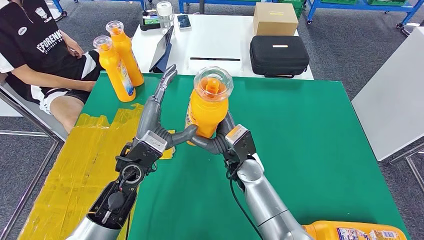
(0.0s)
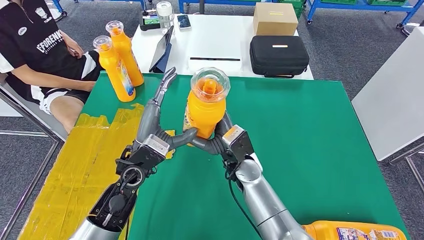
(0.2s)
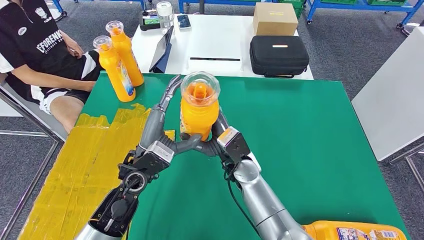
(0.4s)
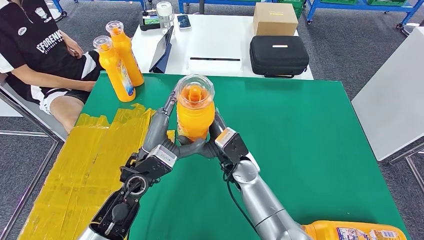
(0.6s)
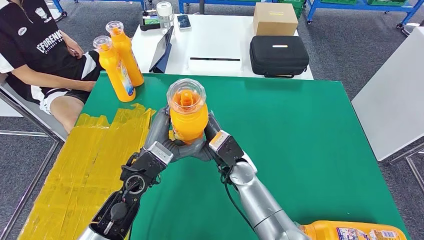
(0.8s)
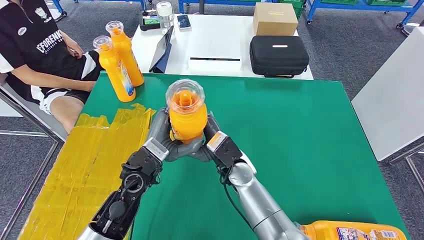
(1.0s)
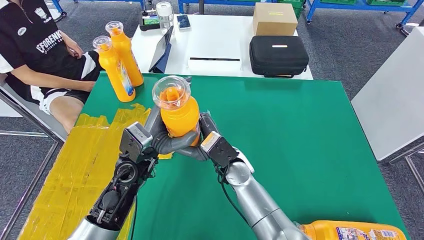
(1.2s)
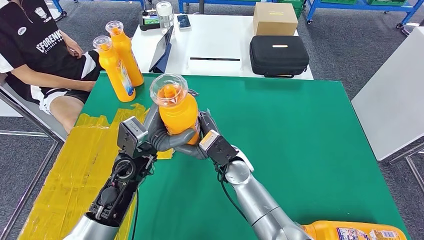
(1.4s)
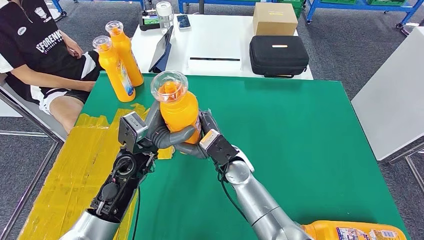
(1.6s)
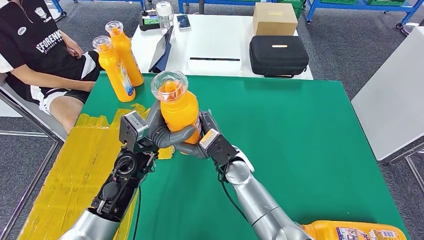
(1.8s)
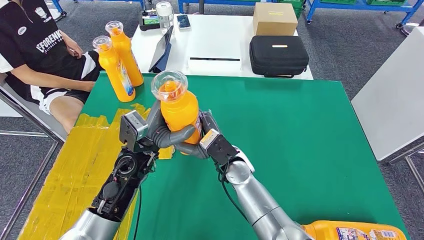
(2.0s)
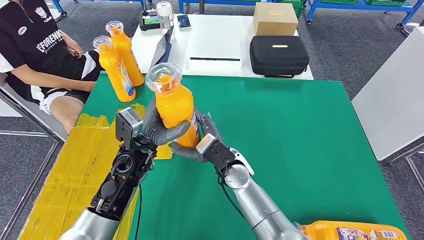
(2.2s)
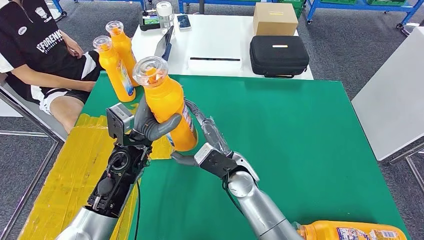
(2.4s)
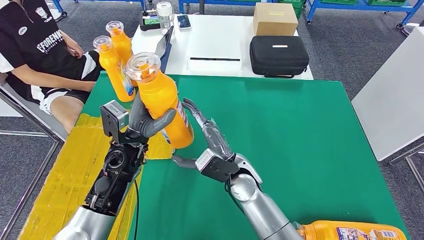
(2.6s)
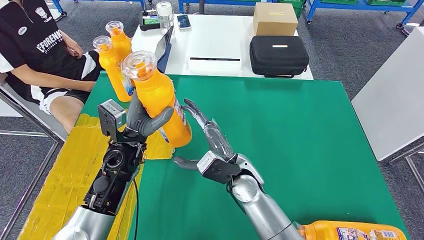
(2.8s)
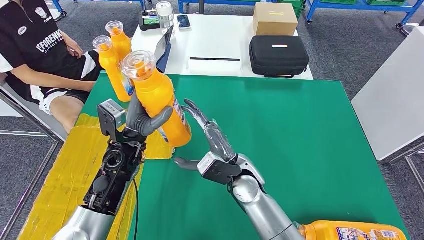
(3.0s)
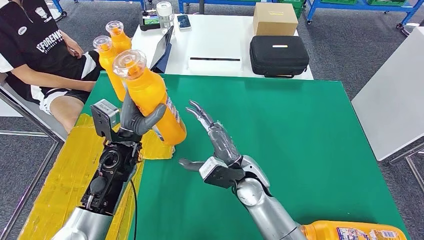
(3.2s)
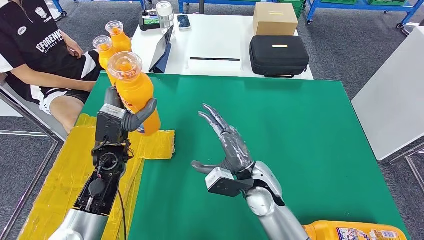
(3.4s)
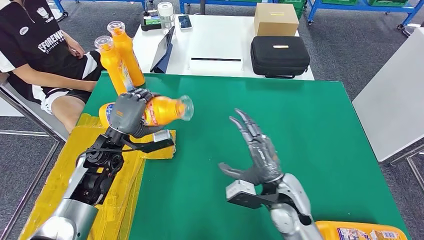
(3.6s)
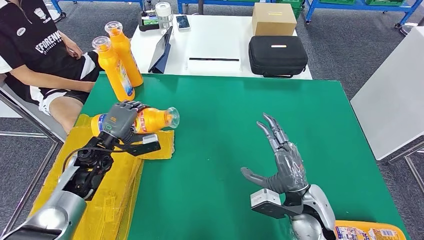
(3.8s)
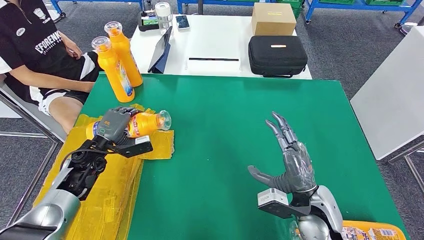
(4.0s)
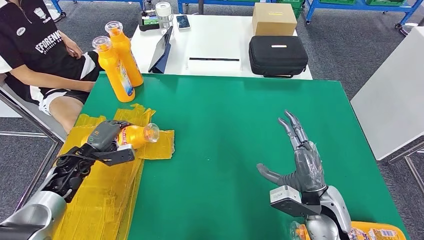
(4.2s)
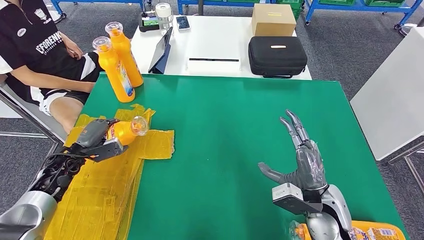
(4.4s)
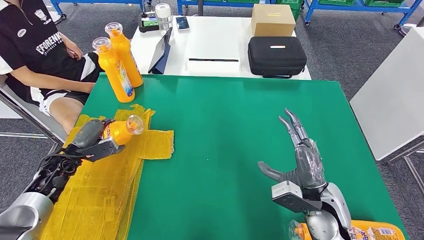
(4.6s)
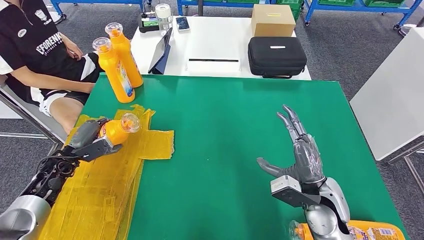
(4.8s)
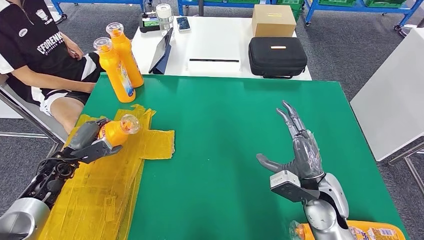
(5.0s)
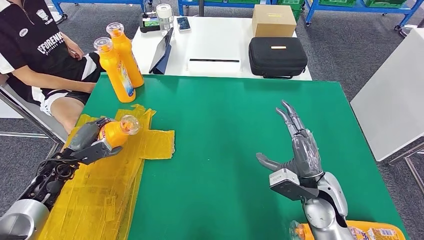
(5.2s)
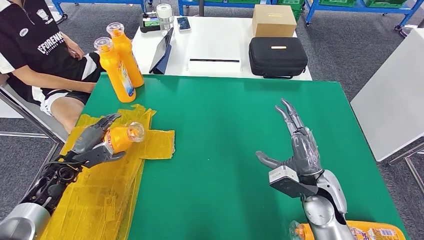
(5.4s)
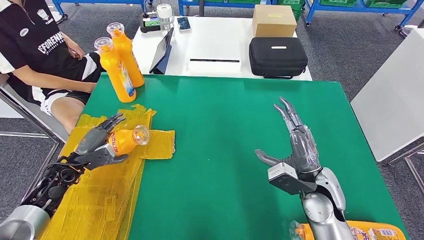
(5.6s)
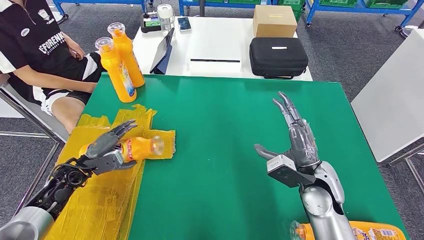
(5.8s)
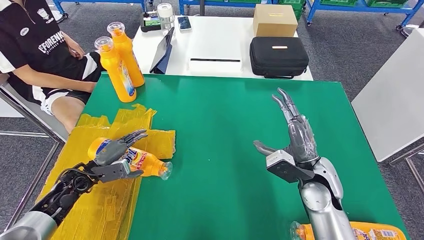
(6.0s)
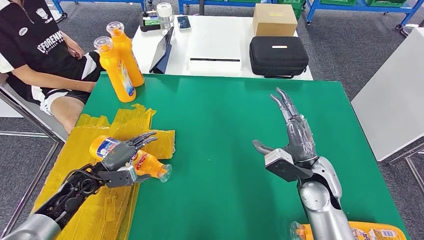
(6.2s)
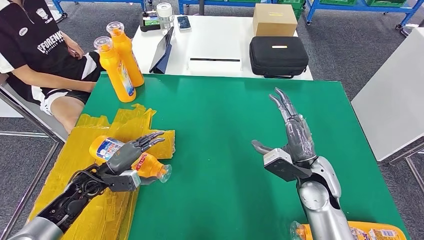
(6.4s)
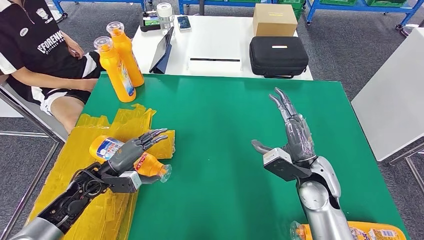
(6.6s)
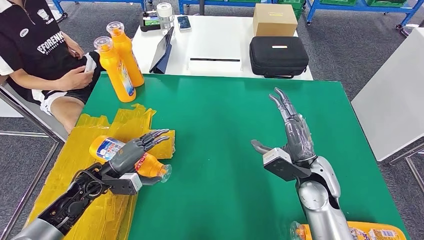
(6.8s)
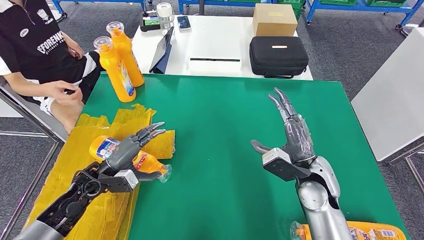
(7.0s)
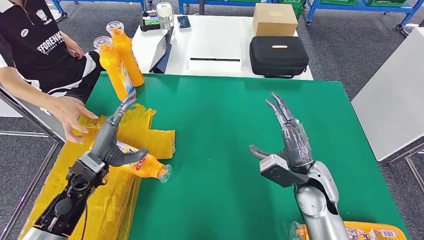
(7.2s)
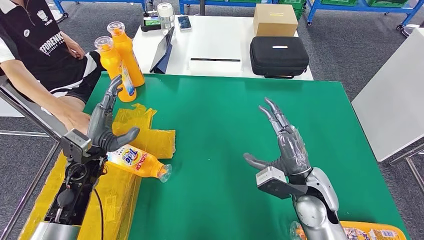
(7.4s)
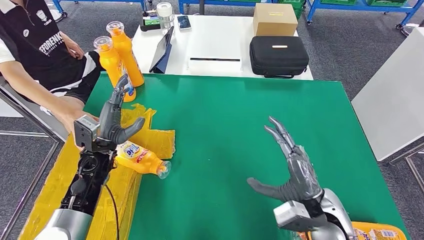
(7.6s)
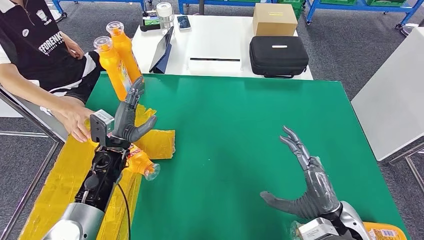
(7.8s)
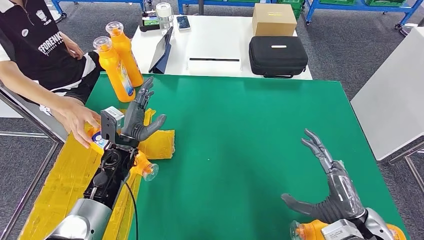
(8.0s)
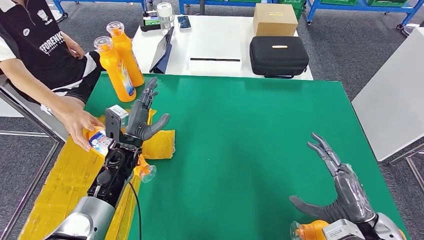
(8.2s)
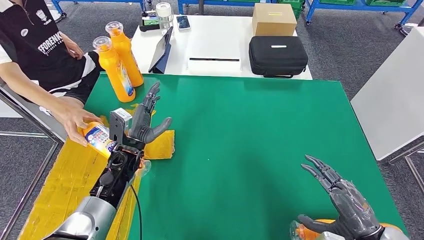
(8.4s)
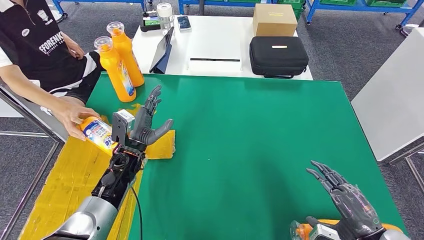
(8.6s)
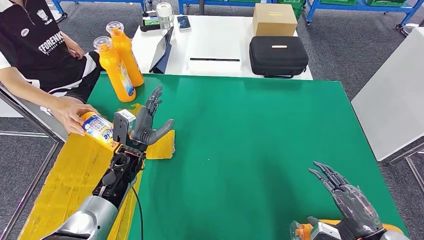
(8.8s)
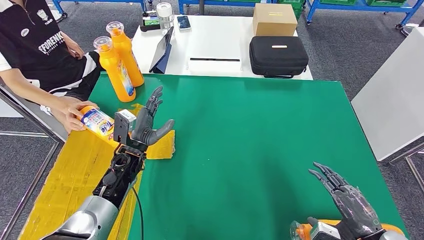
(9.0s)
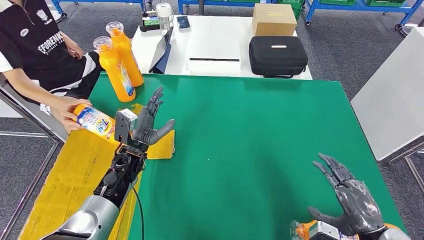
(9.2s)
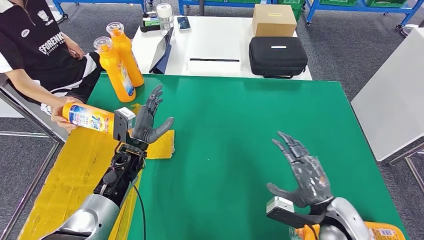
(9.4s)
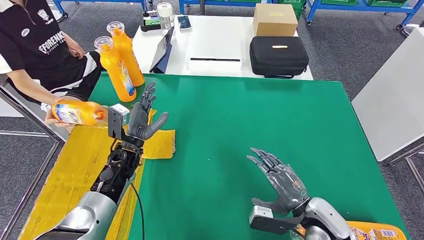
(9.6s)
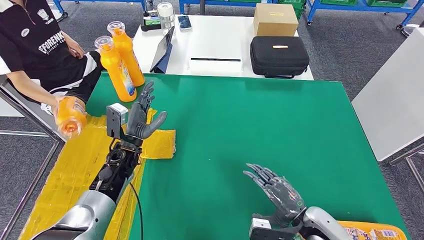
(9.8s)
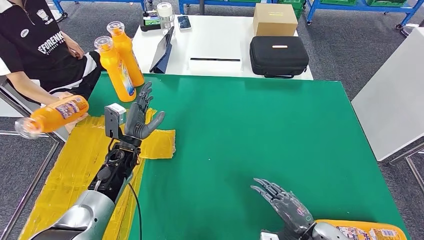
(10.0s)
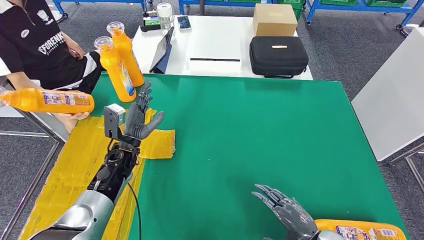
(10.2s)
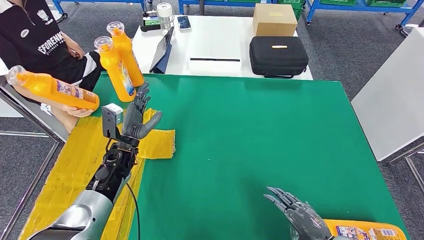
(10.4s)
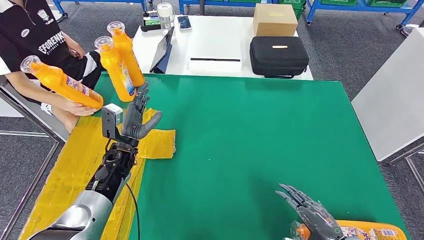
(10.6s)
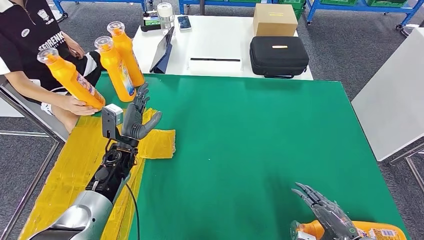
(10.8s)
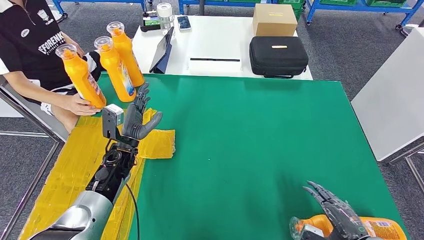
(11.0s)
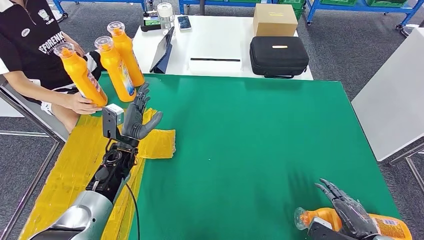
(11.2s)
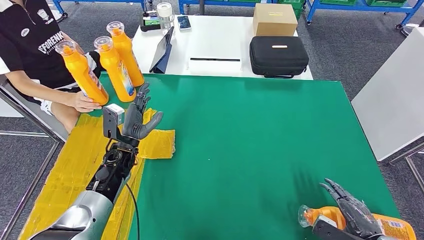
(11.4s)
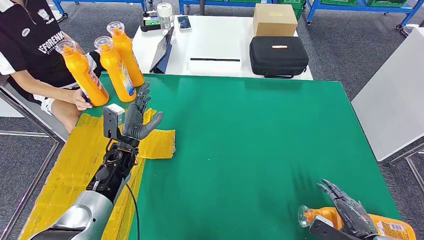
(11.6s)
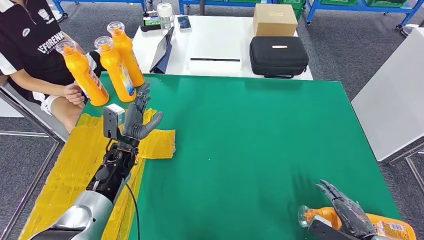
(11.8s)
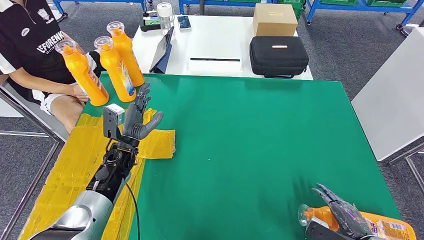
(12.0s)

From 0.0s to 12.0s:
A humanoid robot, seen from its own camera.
Step, from 1.6s to 8.0s: Flip the fast-moving consumer goods bottle to the front side.
From 1.6s to 3.0s: The hands make only small movements.
From 7.6s to 9.0s: The right hand moves to the right and backward, about 15 cm. The left hand shifts roughly 5 cm to the right.
From 9.0s to 10.4s: The right hand moves to the left, about 5 cm.
From 10.4s to 12.0s: The right hand heads to the right, covering roughly 10 cm.

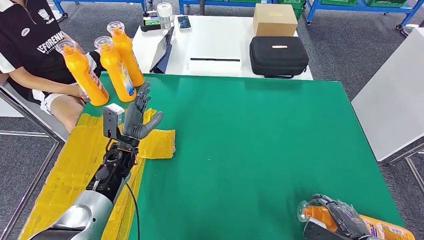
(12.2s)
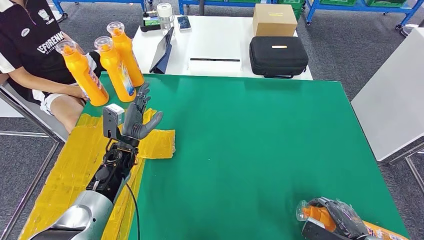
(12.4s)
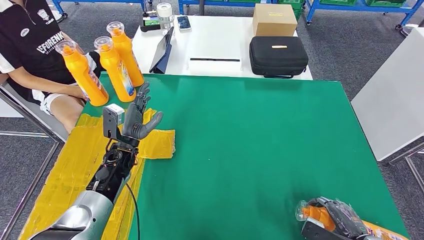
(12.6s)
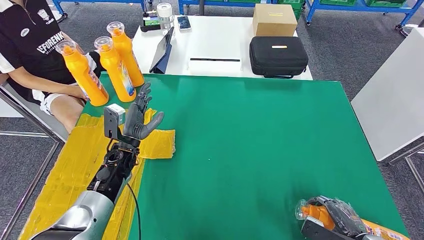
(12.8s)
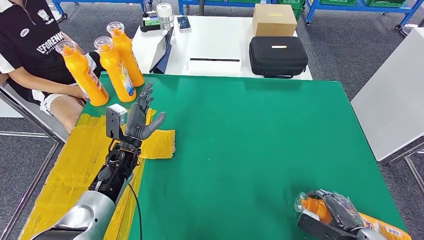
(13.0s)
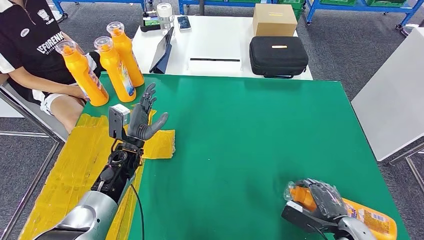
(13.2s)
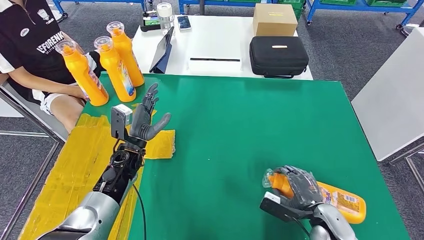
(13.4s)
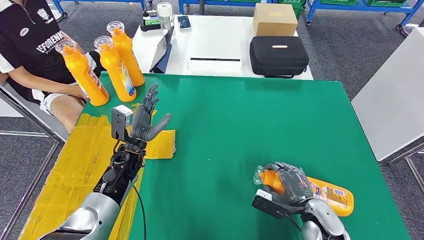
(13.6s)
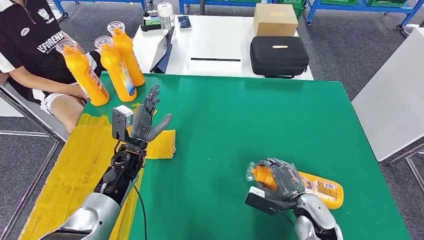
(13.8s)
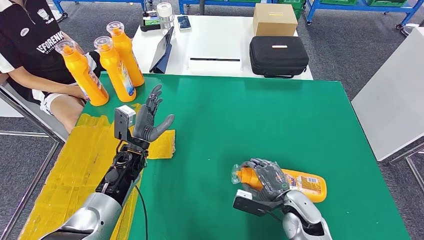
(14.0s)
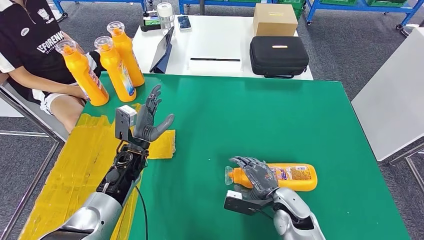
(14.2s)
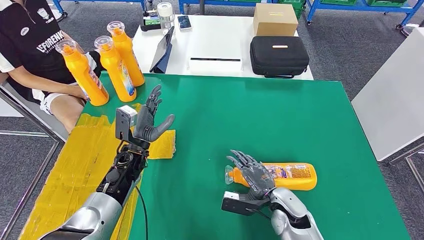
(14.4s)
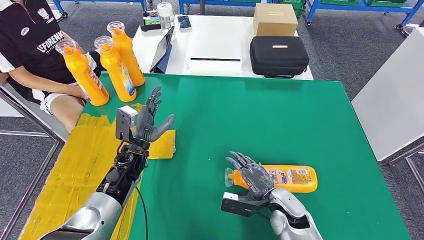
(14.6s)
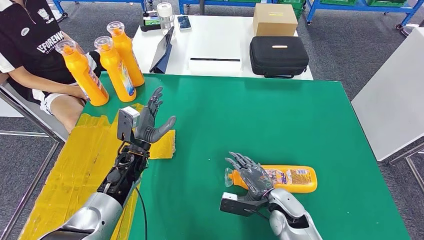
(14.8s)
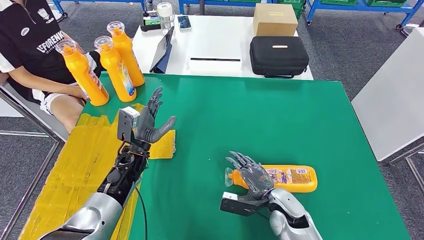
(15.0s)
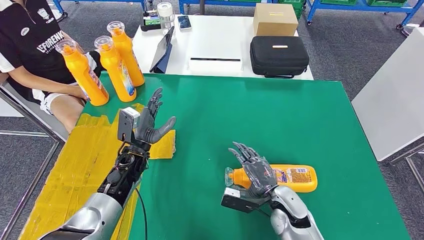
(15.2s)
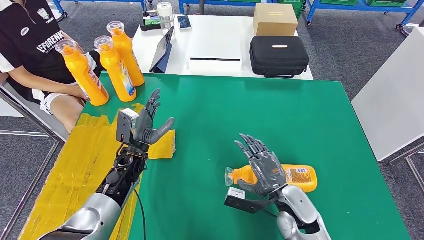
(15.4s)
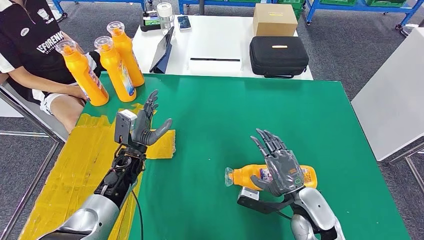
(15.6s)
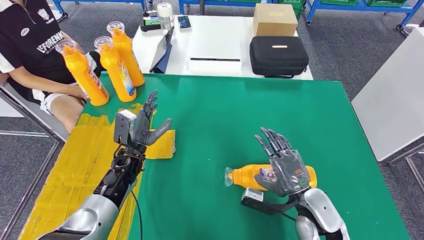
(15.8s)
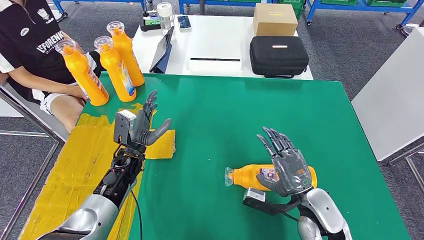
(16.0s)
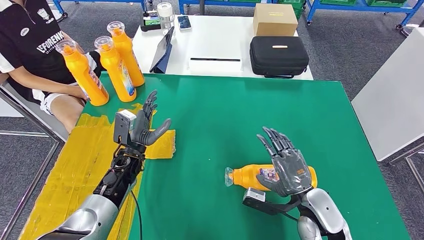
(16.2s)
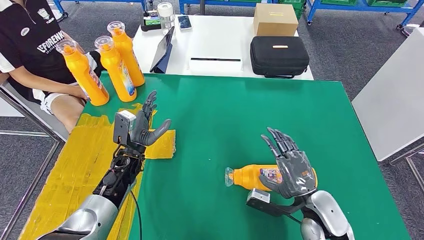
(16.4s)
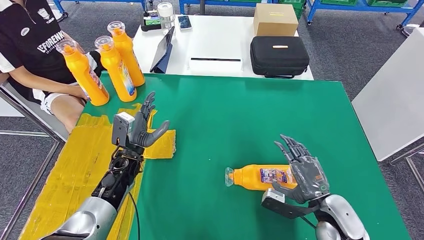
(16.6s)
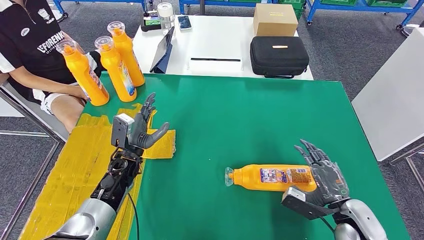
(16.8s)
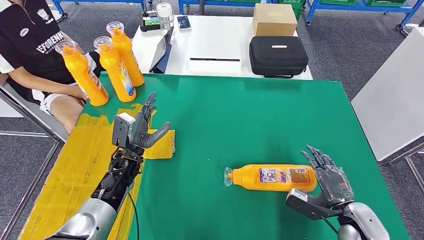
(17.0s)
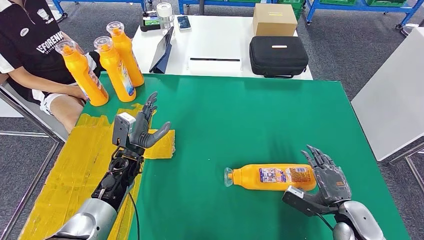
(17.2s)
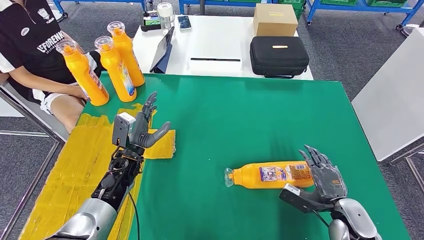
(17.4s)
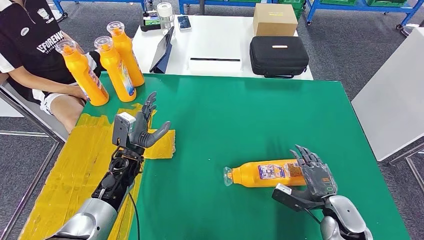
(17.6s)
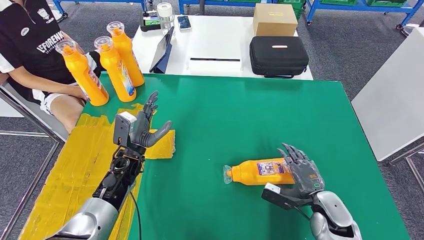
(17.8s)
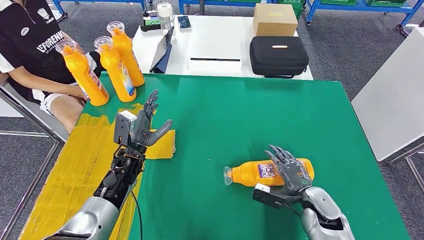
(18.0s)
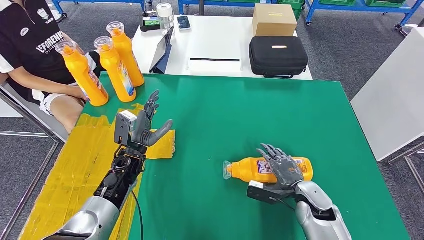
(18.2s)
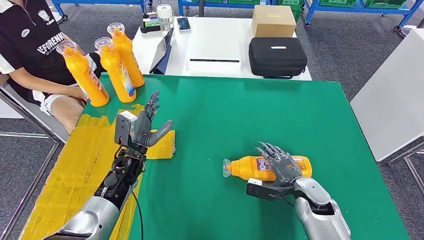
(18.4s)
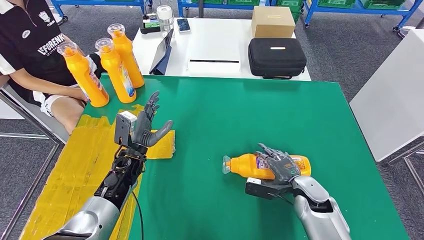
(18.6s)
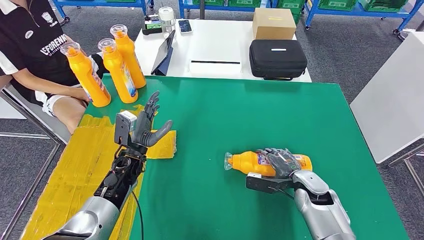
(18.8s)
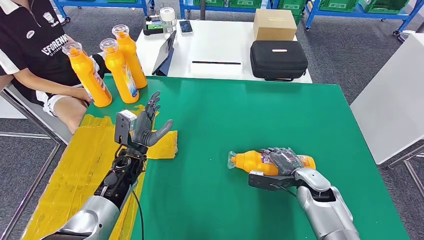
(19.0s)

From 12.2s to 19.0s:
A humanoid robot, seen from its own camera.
From 12.2s to 13.6s: The right hand is displaced to the left and forward by about 15 cm.
From 13.6s to 15.0s: The right hand moves to the left, roughly 10 cm.
From 15.0s to 16.2s: The right hand goes about 10 cm upward.
From 16.2s to 17.6s: The right hand shifts about 10 cm to the right and downward.
